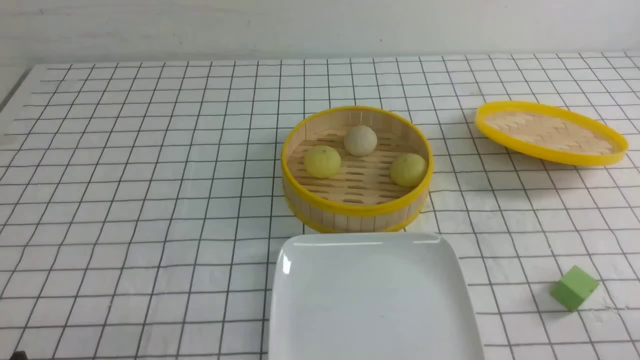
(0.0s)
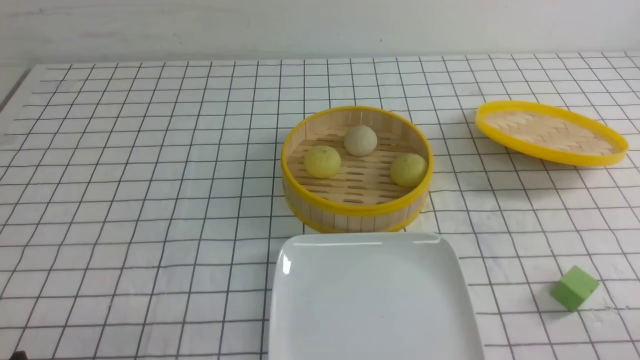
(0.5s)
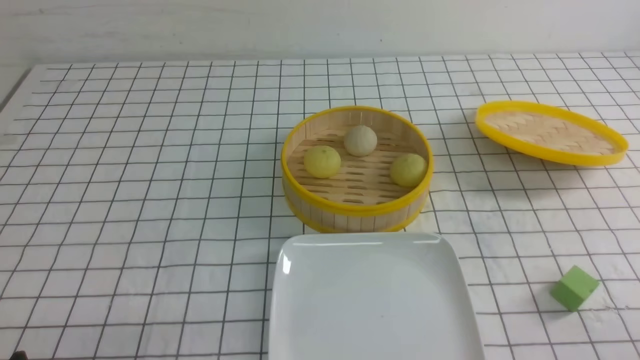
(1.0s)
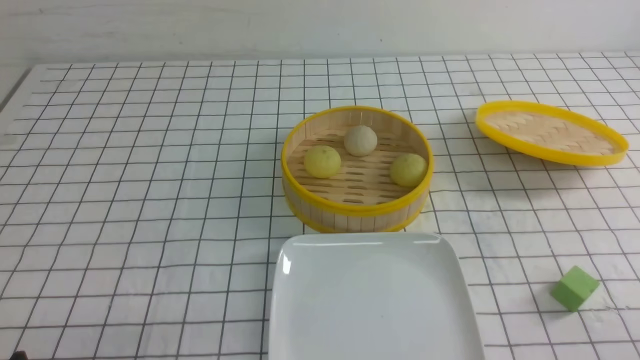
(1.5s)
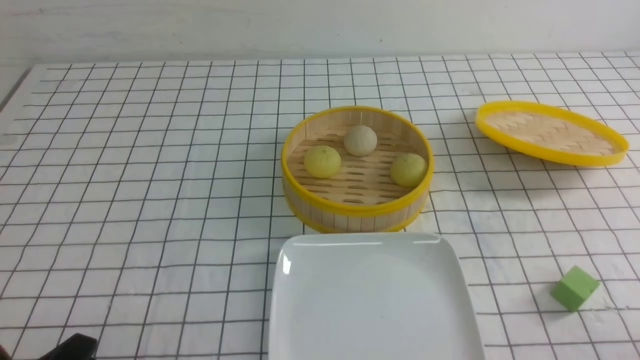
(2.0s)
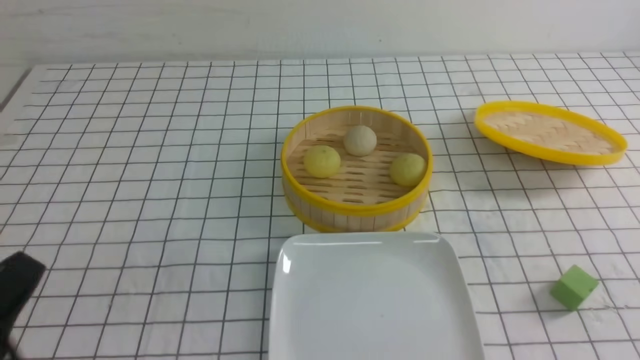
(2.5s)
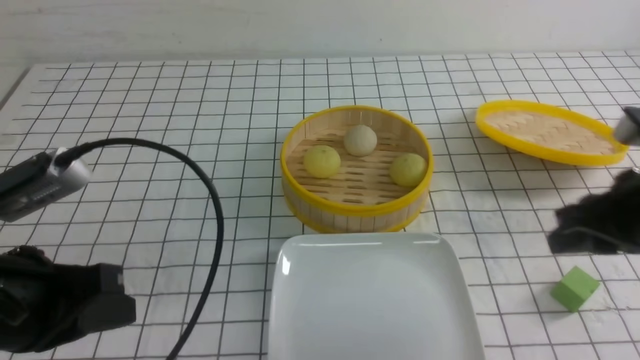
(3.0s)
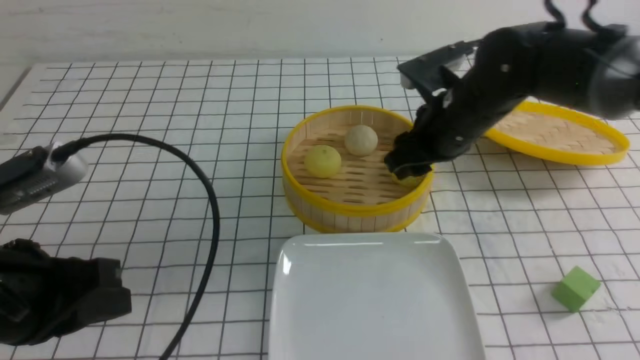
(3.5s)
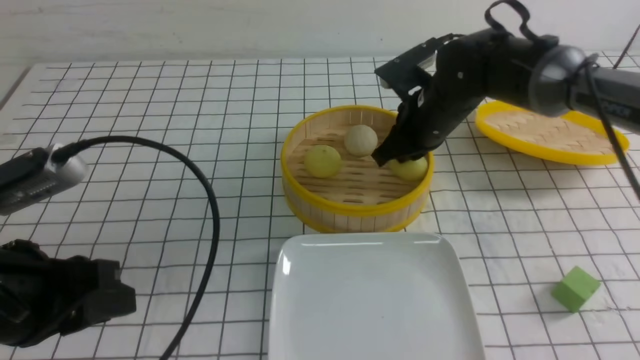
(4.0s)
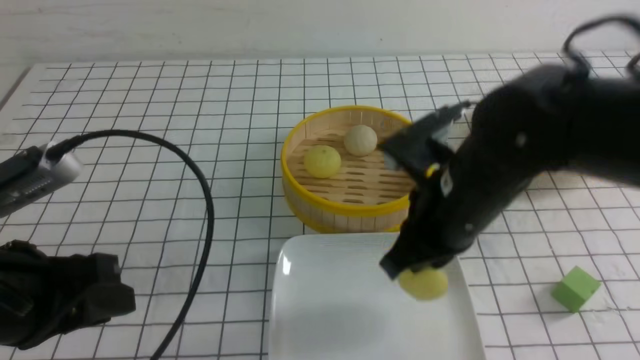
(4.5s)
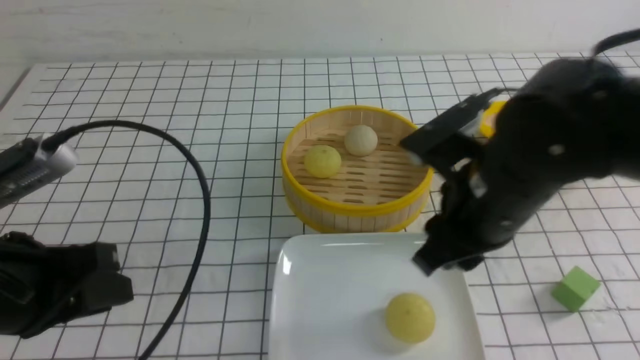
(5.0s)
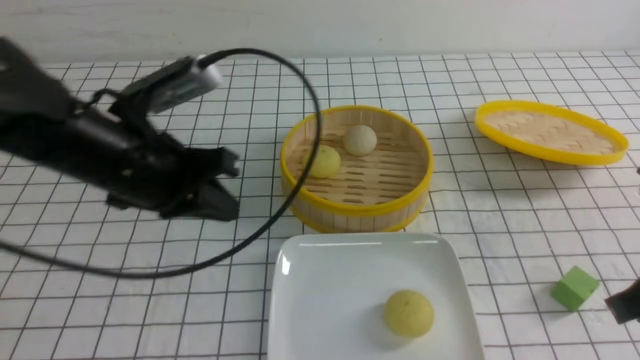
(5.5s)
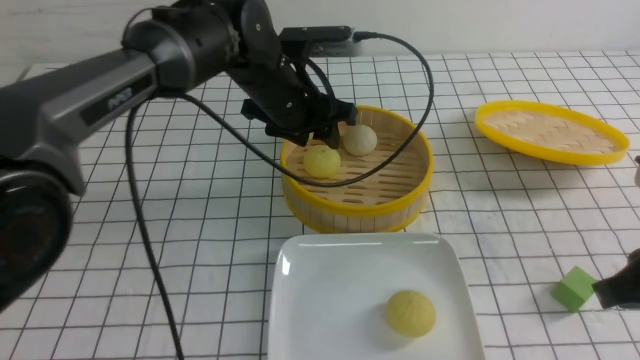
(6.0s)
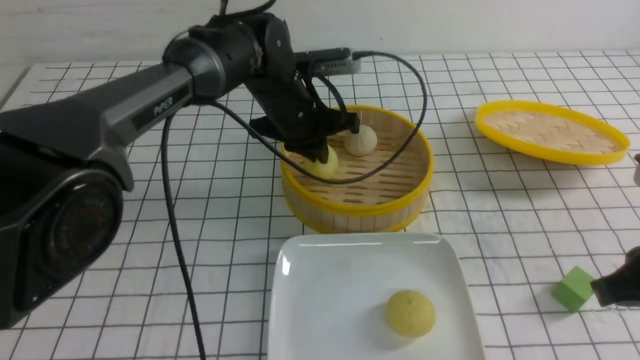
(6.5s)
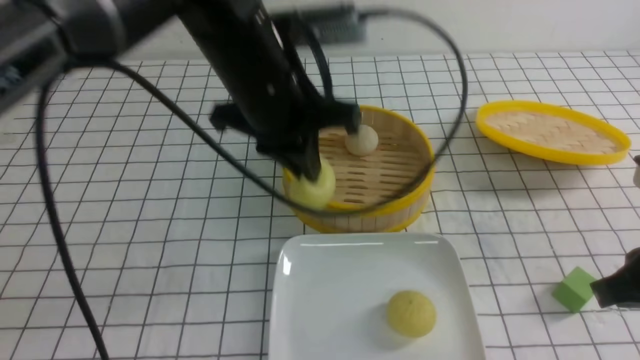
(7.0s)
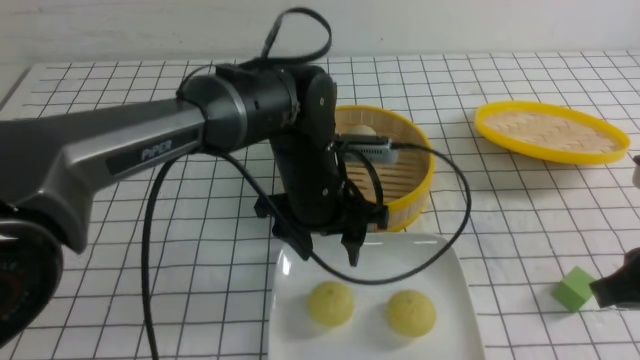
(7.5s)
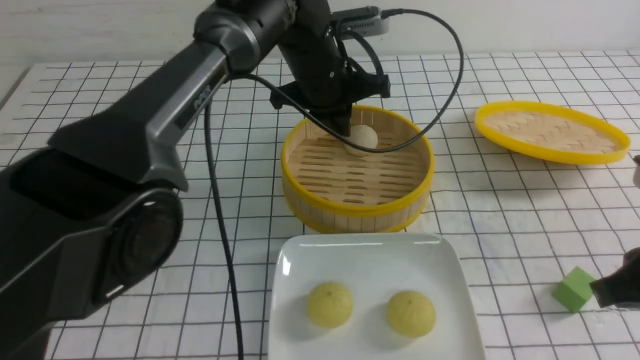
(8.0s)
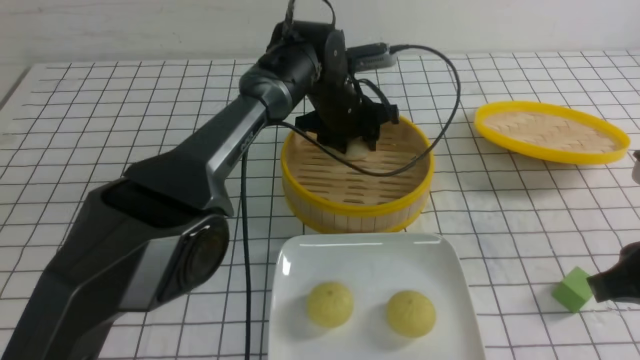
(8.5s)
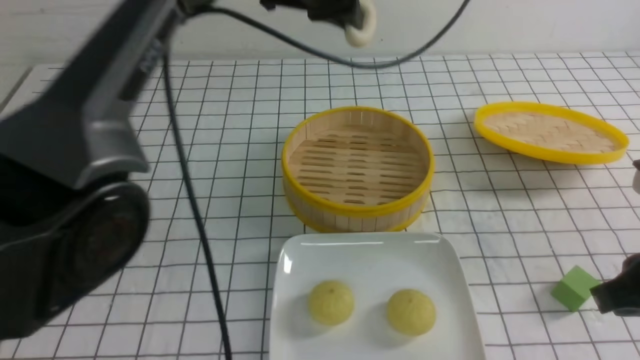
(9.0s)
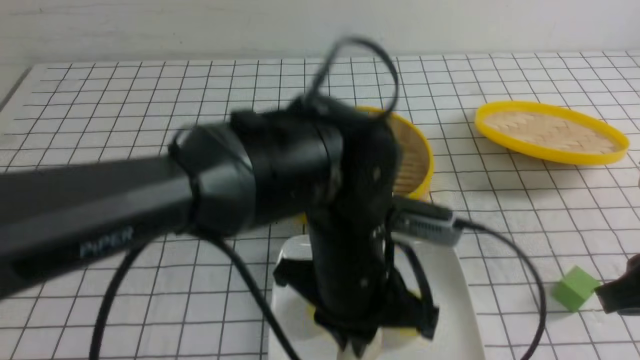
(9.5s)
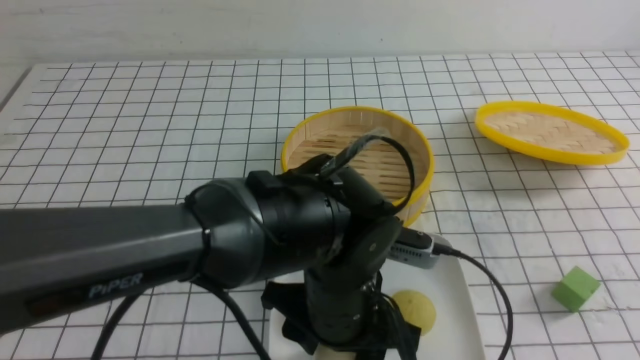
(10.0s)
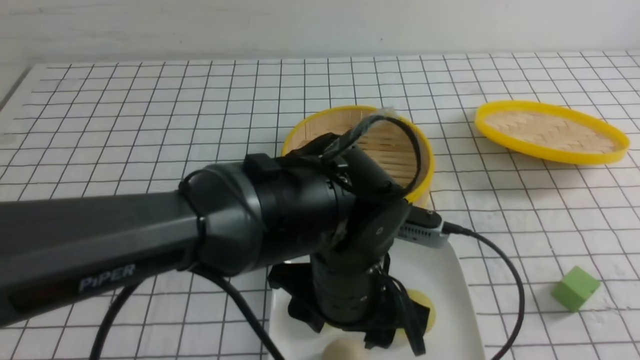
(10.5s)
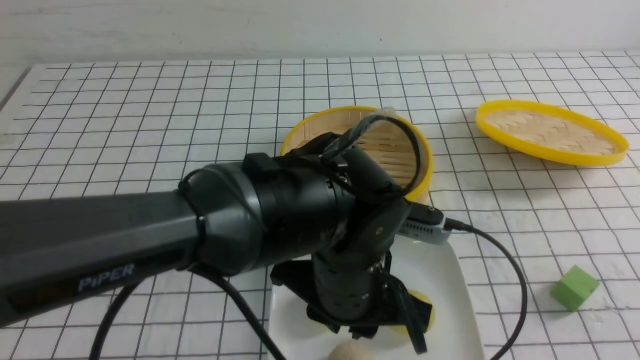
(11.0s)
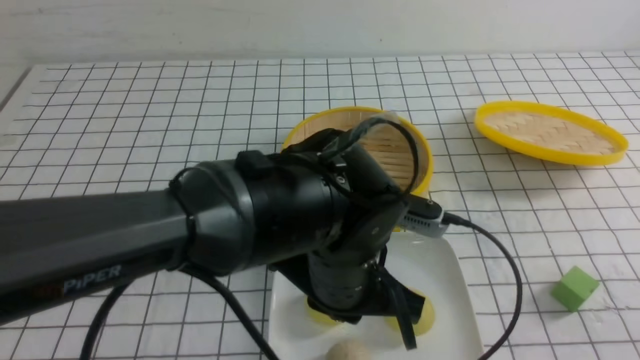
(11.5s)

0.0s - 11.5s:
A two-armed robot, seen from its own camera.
Step, 0.0s - 4.0s: use the right arm to grab the steamed stuffed bun that is closest to it.
Step, 5.0s - 6.0s: use the left arm to grab the steamed stuffed bun that is closest to it.
Step, 7.5s - 8.5s: use the left arm to grab the steamed stuffed bun that is closest to it.
Step, 9.0s - 10.0s: use the left arm to put the steamed stuffed bun into the plate.
2.0s - 4.0s: The left gripper is displaced upward and forward by roughly 15 cm, and closes and opens again. The right gripper heads forward and to the left, covering approximately 40 cm, and closes its fingers.
4.0s - 6.0s: The right gripper shifts approximately 25 cm backward and to the right. Meanwhile the left gripper moves forward and to the right, about 30 cm.
6.0s - 7.5s: The left gripper is displaced backward by roughly 10 cm, and closes and opens again.
7.5s - 9.5s: The left gripper heads backward, covering about 10 cm, and closes.
9.5s - 11.5s: The right gripper moves backward, downward and to the right, approximately 15 cm; the left gripper opens, then closes once more.

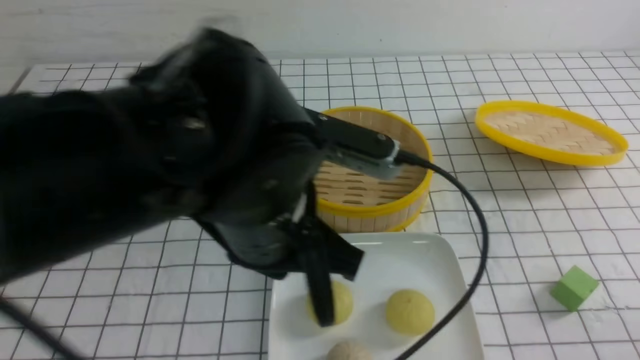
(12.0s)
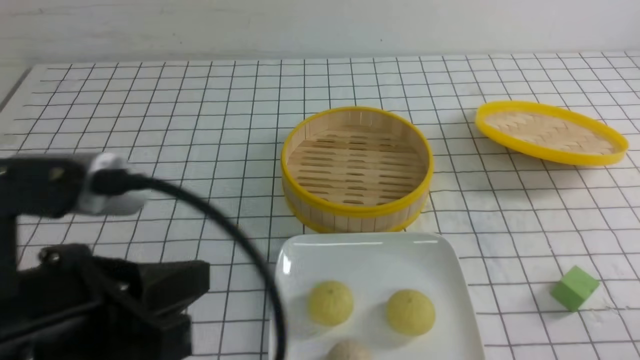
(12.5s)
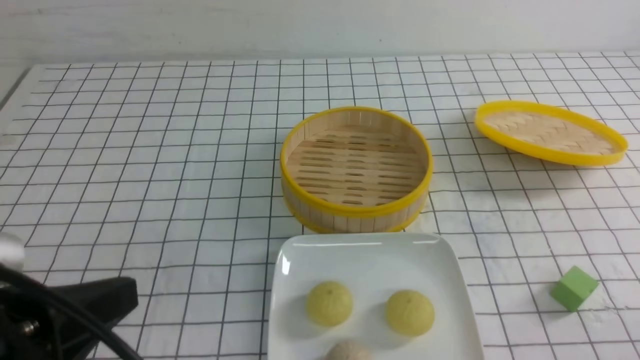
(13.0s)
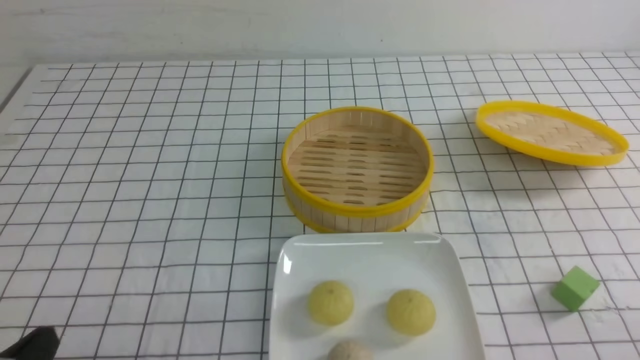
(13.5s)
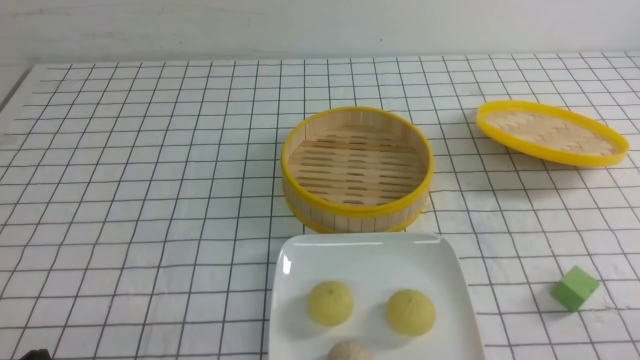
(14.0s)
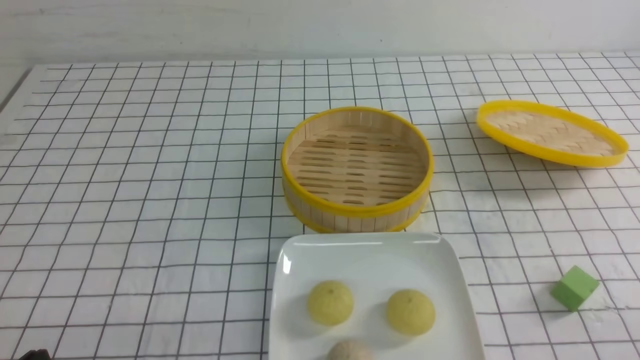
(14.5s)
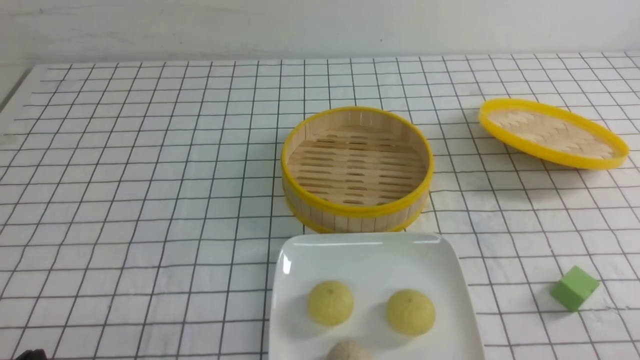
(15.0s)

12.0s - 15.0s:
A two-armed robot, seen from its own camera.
12.0s - 13.5s: The left gripper travels to the left, downward and backward by approximately 25 cm.

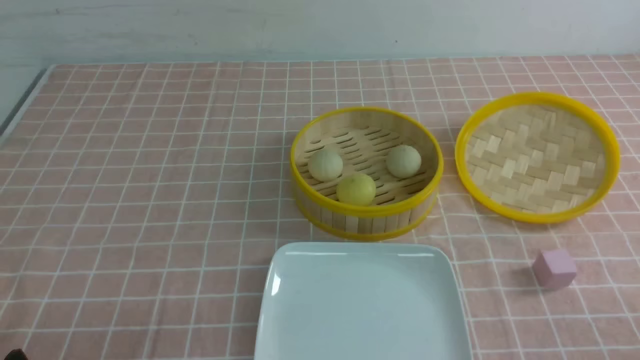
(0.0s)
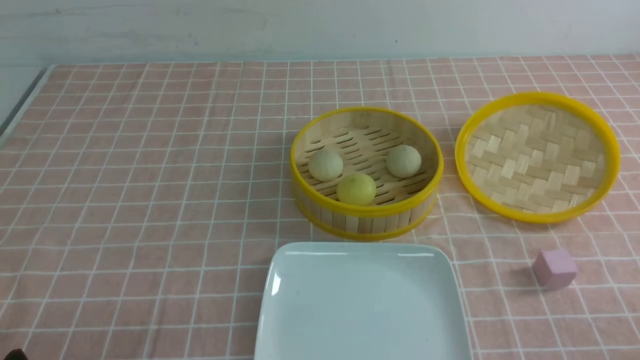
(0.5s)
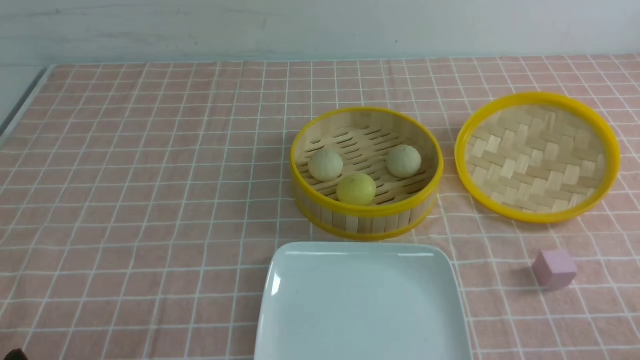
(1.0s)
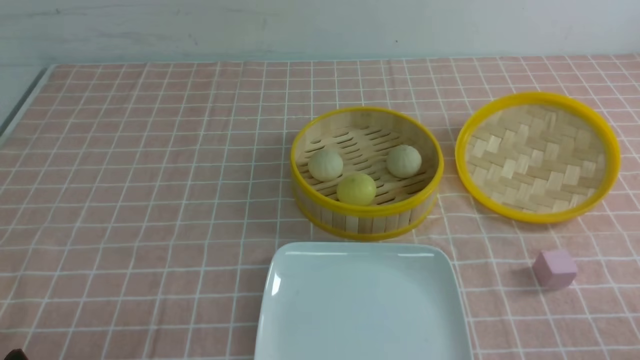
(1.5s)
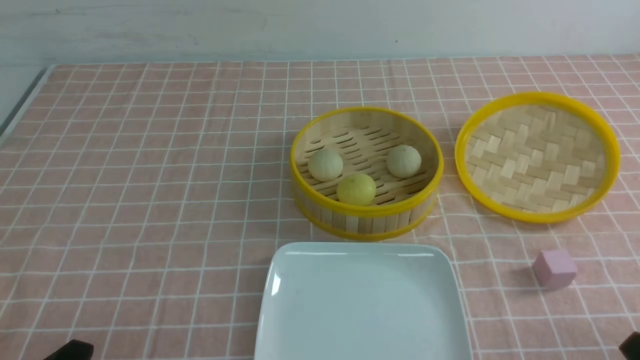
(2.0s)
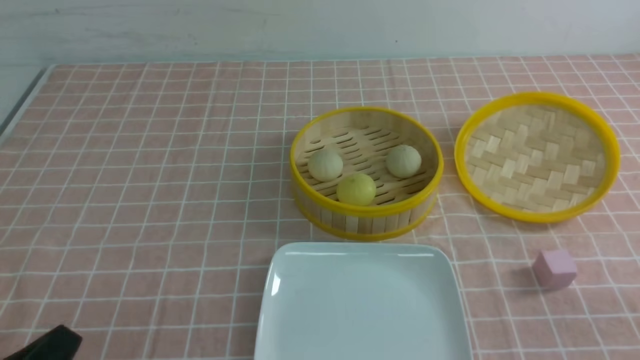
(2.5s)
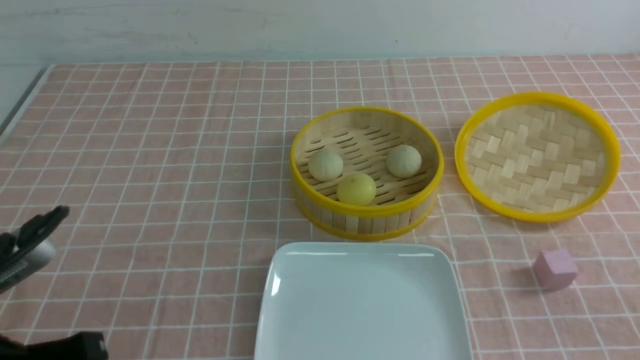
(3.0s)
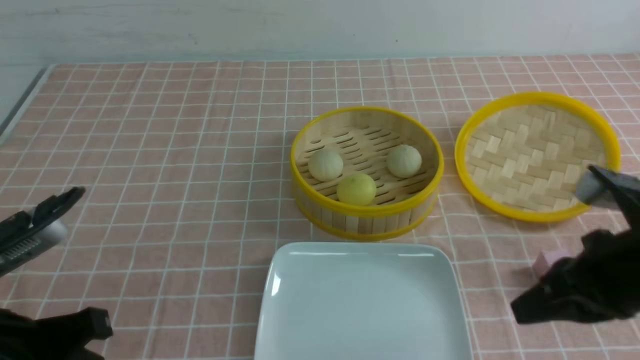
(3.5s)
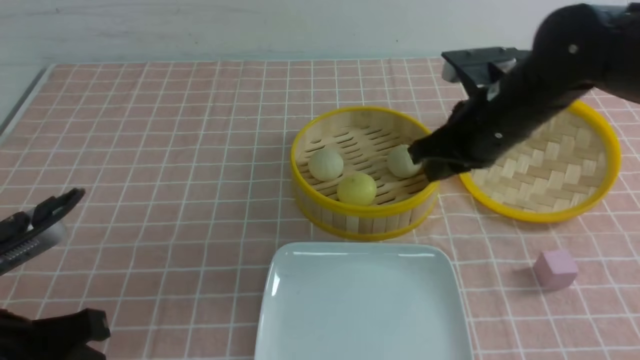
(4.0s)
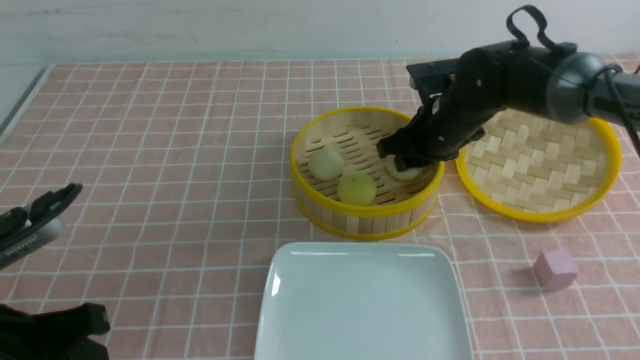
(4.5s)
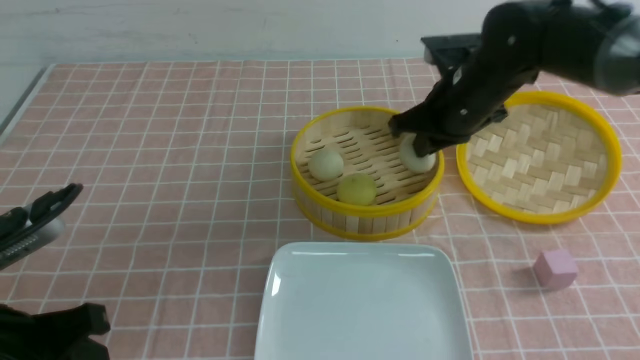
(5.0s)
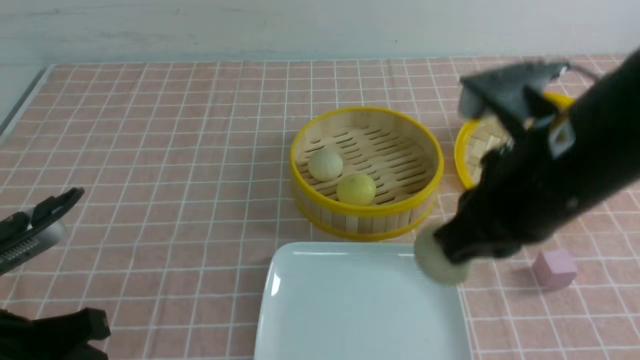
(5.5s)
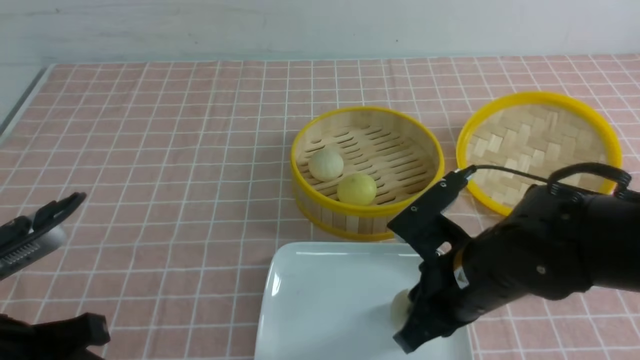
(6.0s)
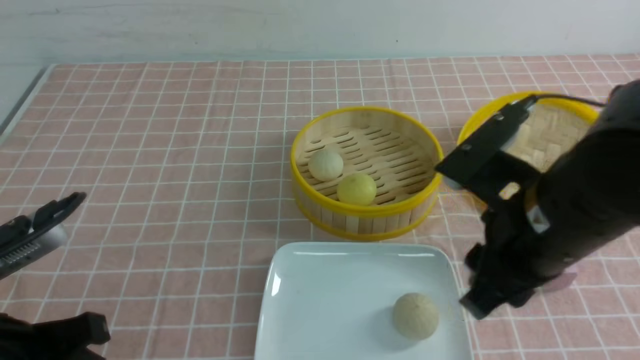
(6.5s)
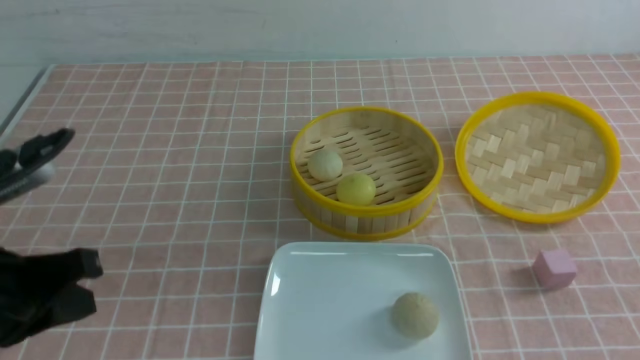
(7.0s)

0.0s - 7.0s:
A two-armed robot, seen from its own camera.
Step, 0.0s - 4.5s: use the right arm to grab the steamed stuffed bun that is closest to it.
Step, 5.0s - 6.0s: use the right arm to put the steamed stuffed bun into the plate.
2.0s - 3.5s: The left gripper heads upward and forward, covering some 10 cm, and closes its fingers. Meanwhile the right gripper heads forward and upward, covering about 20 cm, and closes.
3.5s - 5.0s: The left gripper opens up, while the right gripper heads forward and to the left, covering about 20 cm, and opens and closes again.
5.0s - 7.0s: The right gripper travels backward and to the right by roughly 30 cm, and opens, then closes again, while the left gripper shifts by some 5 cm, and closes up.
